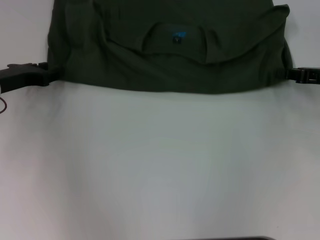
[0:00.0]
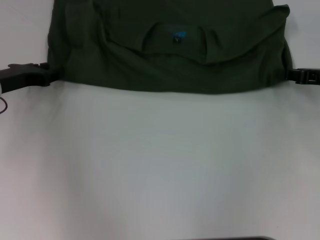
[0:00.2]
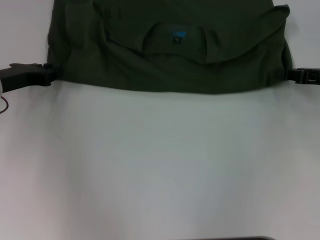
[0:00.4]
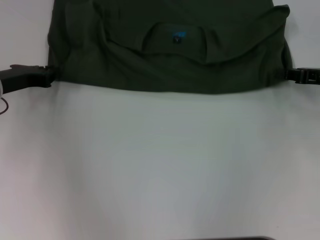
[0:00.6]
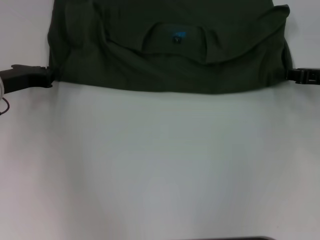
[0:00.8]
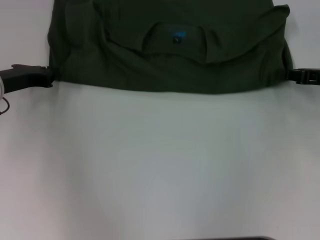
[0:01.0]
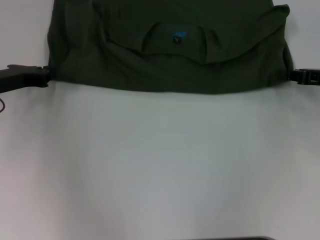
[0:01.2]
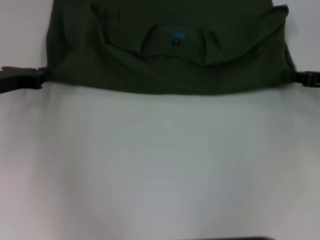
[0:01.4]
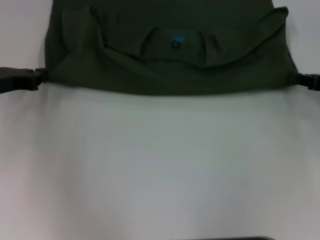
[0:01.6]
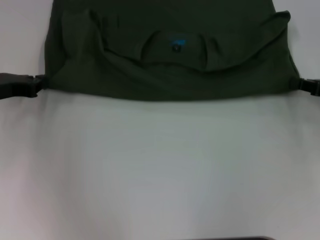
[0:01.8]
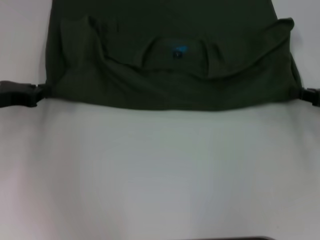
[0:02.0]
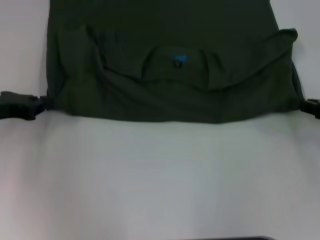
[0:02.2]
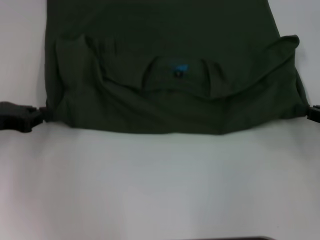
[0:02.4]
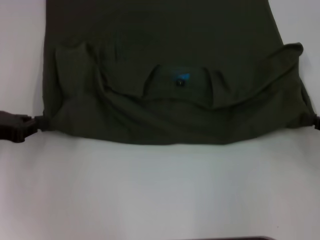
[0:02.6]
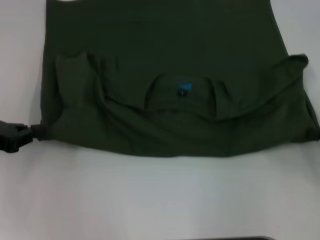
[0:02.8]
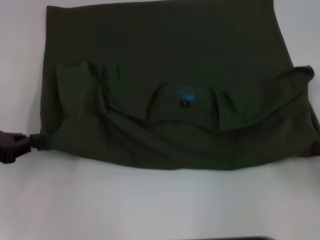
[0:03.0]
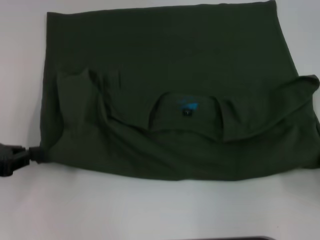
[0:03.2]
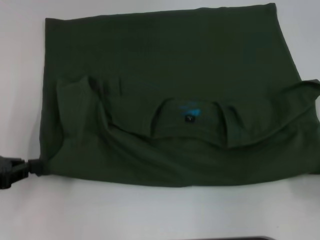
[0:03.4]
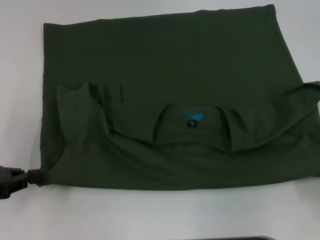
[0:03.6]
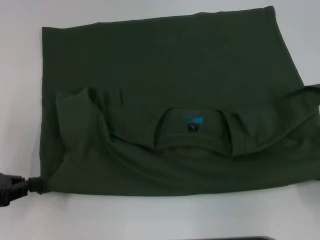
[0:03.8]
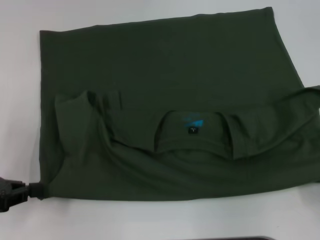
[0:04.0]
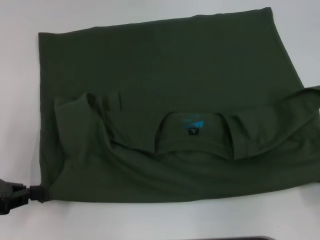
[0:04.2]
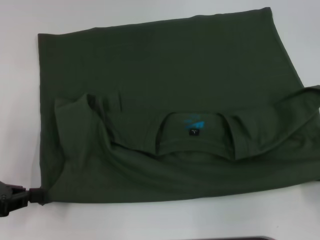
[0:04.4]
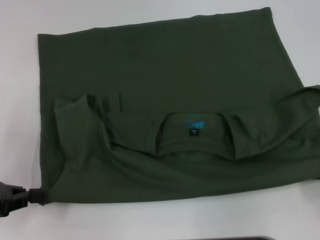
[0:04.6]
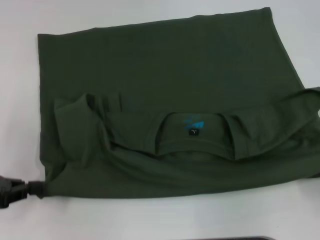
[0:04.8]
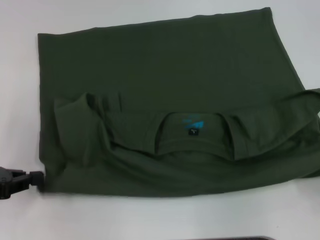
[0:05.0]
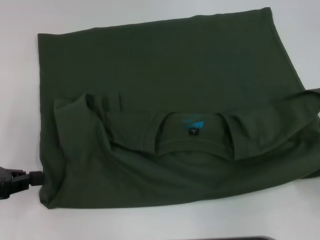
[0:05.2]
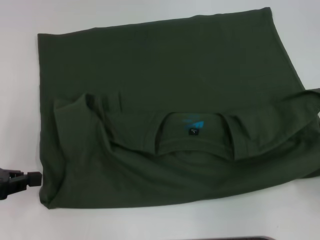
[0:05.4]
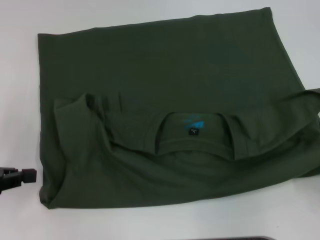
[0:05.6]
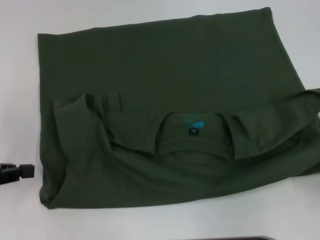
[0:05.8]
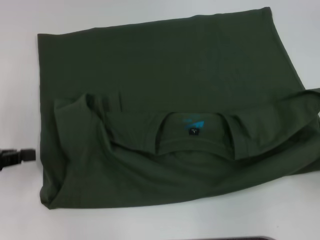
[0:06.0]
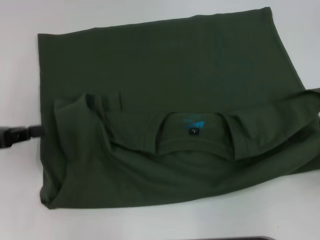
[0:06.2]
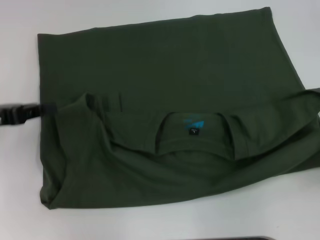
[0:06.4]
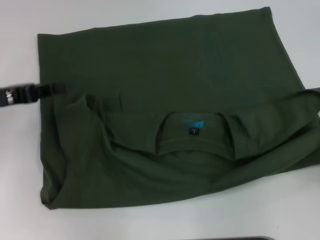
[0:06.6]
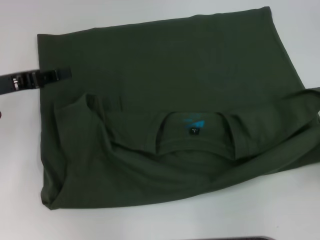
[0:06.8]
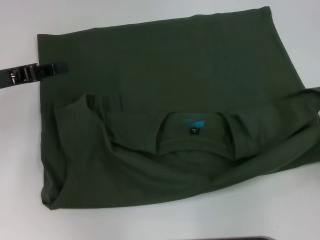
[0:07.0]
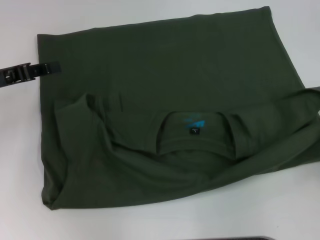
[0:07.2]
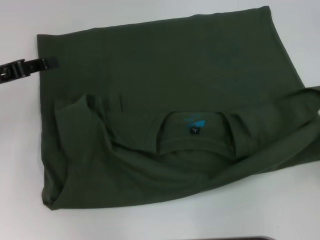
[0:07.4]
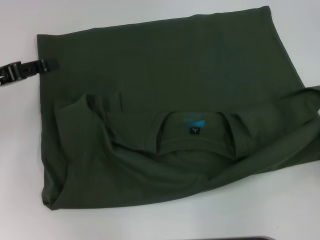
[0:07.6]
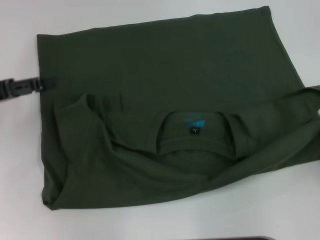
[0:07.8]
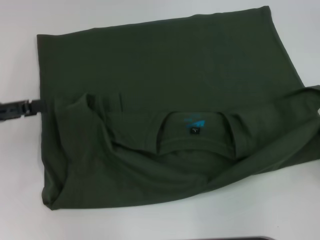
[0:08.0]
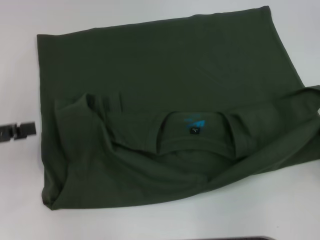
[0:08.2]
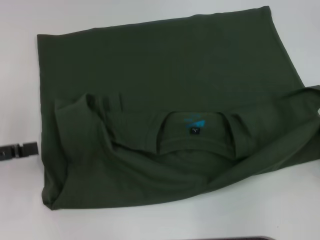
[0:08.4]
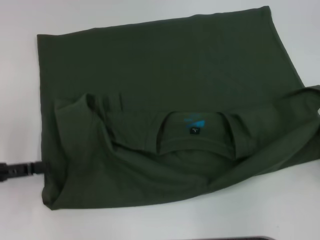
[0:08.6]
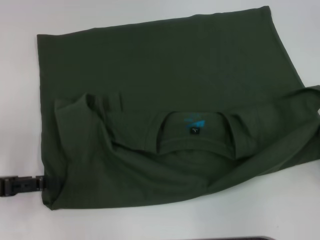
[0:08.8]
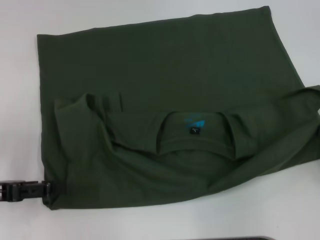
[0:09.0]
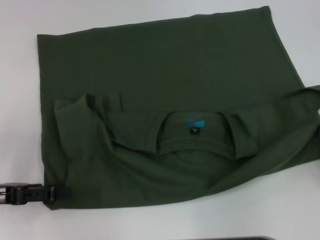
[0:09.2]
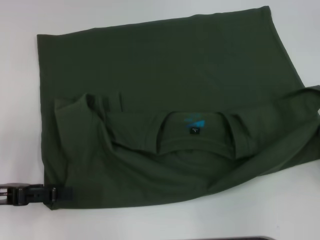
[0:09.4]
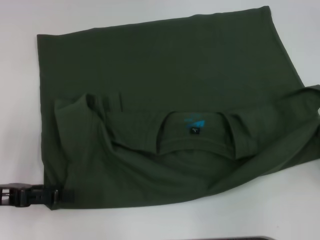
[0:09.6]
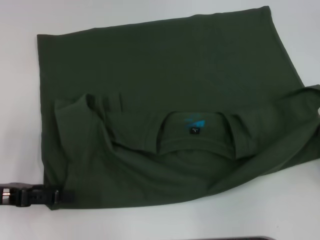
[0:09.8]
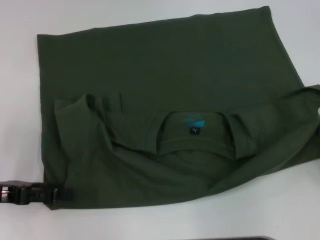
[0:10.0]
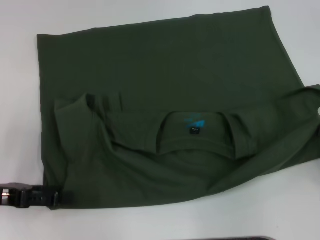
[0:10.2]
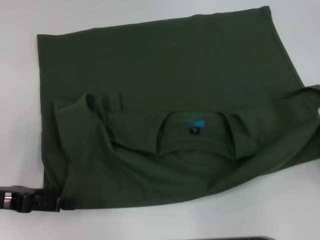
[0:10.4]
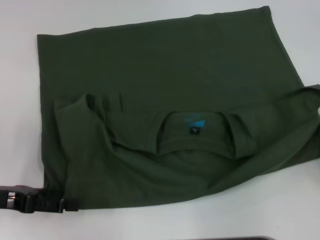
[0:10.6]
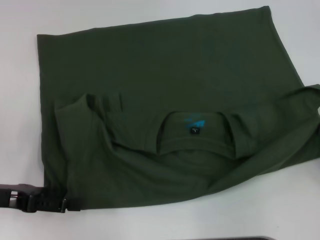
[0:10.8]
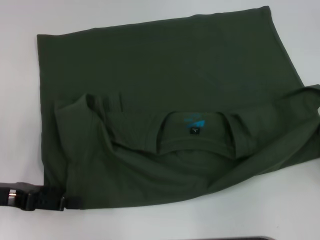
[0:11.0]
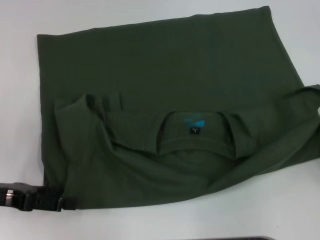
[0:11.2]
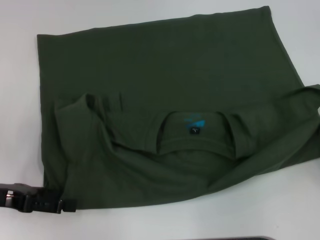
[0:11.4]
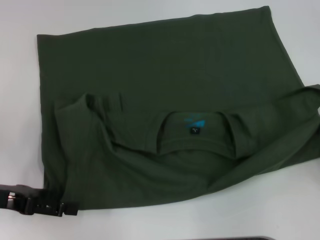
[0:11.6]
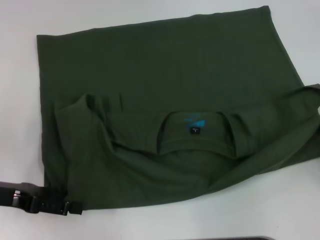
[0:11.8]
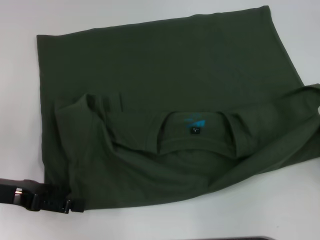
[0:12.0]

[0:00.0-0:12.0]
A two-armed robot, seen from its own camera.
Step, 0:00.0 to 0:04.2: Pull the clothes with your left hand.
Step, 0:00.0 to 0:04.2: Pull the clothes with your right hand.
0:00.0 to 0:01.6: The left gripper closes.
0:01.6 to 0:03.0: The two grippers go approximately 10 cm backward.
0:03.0 to 0:04.4: The right gripper travels backward by approximately 5 cm.
0:04.4 to 0:06.0: The grippers stay close to where they were, moving slightly.
0:06.0 to 0:07.6: The left gripper is displaced forward by roughly 10 cm.
0:07.6 to 0:09.0: The left gripper is displaced backward by approximately 10 cm, and opens up.
0:09.0 to 0:12.0: The grippers stay close to where they were, moving slightly.

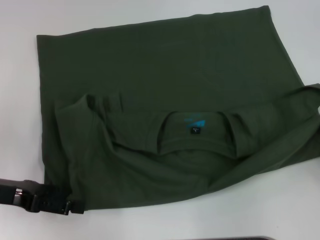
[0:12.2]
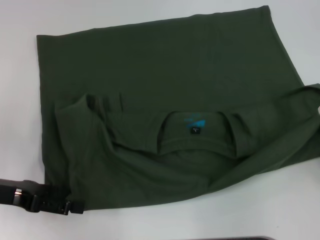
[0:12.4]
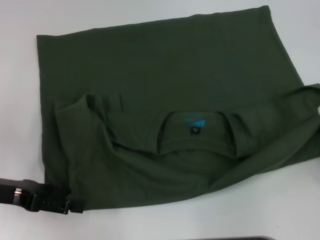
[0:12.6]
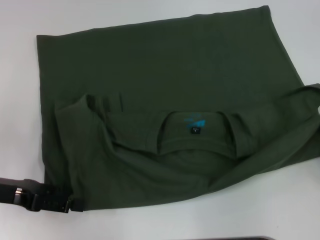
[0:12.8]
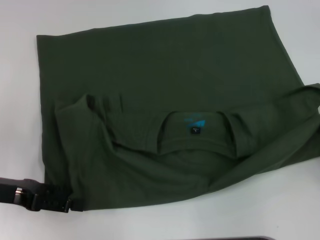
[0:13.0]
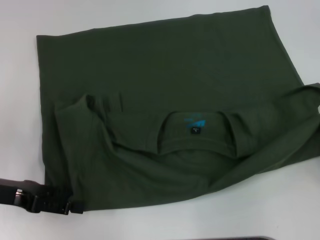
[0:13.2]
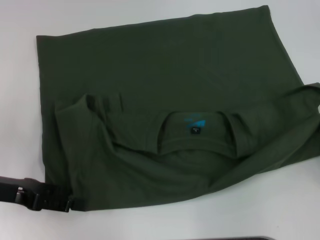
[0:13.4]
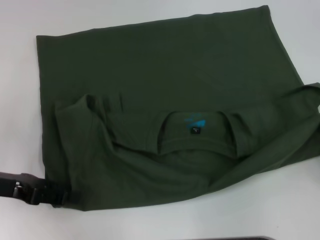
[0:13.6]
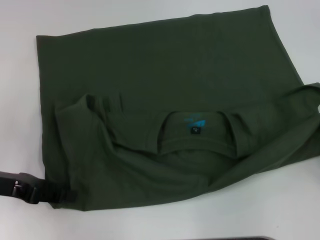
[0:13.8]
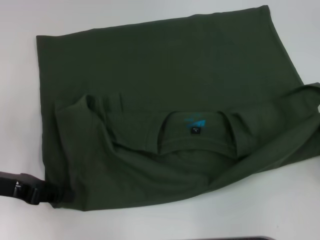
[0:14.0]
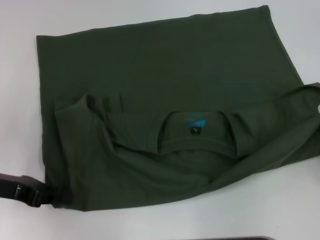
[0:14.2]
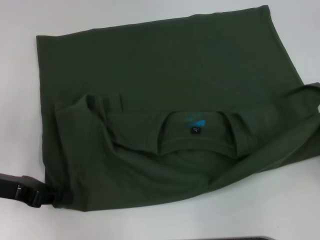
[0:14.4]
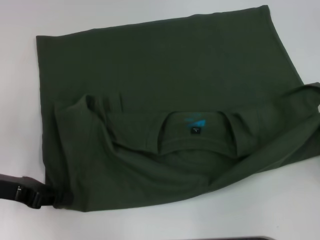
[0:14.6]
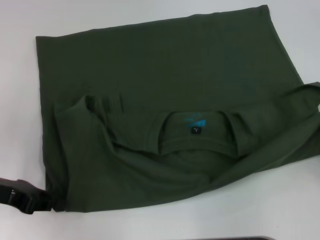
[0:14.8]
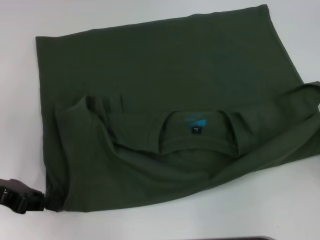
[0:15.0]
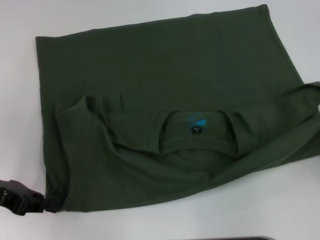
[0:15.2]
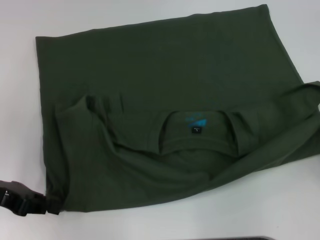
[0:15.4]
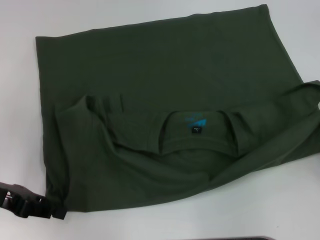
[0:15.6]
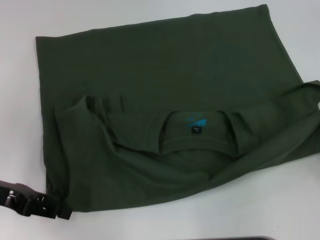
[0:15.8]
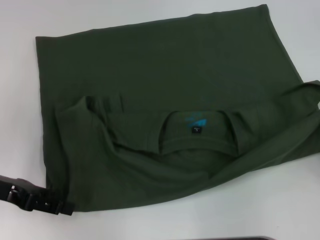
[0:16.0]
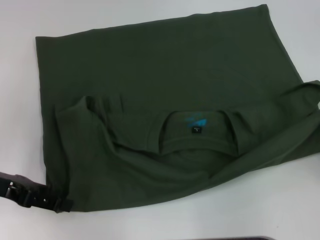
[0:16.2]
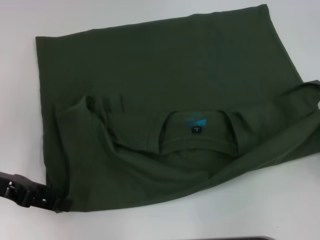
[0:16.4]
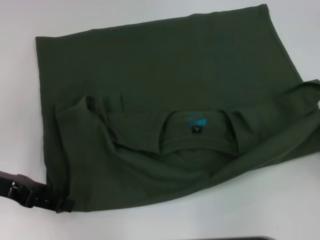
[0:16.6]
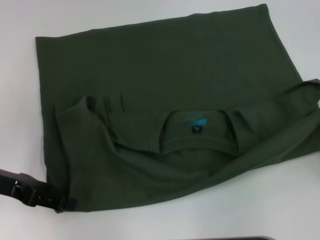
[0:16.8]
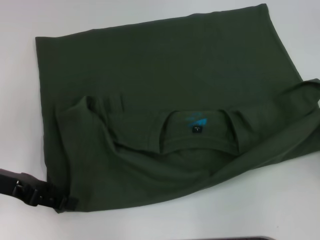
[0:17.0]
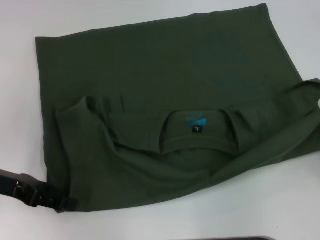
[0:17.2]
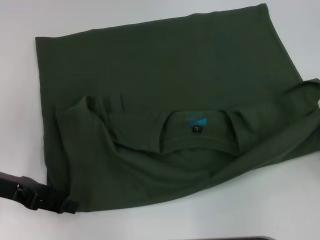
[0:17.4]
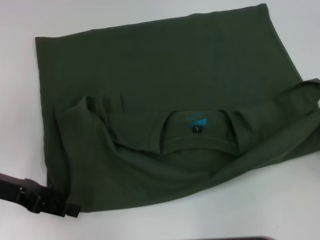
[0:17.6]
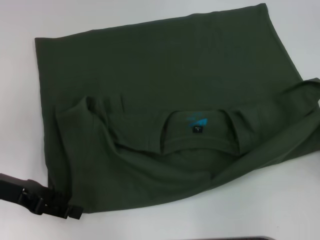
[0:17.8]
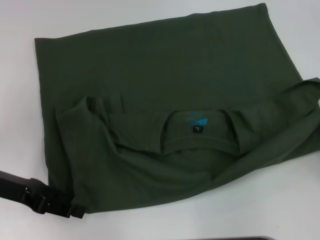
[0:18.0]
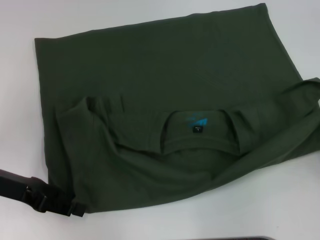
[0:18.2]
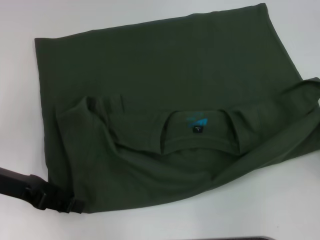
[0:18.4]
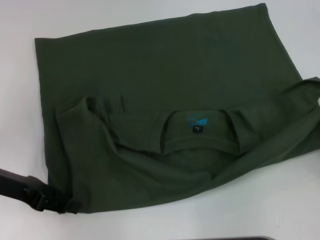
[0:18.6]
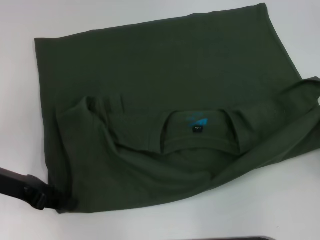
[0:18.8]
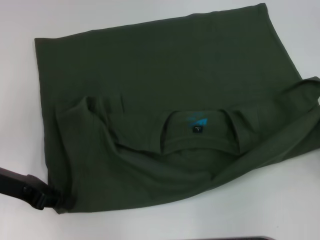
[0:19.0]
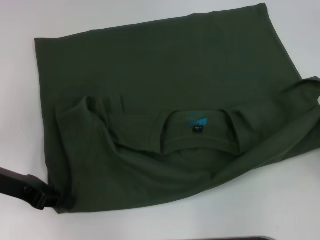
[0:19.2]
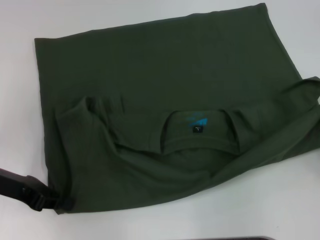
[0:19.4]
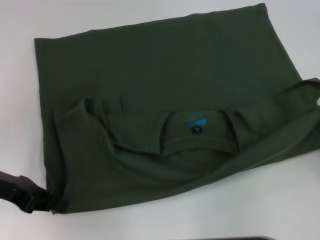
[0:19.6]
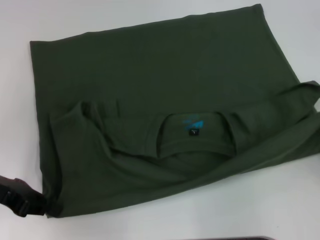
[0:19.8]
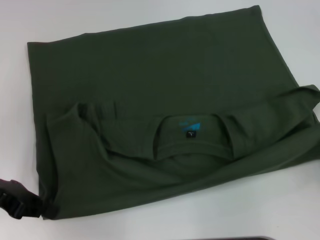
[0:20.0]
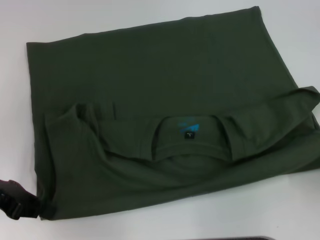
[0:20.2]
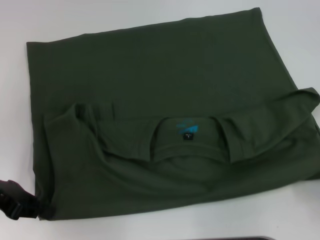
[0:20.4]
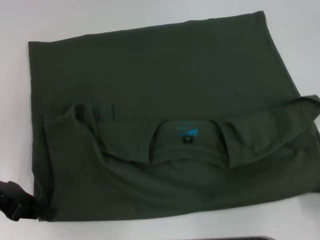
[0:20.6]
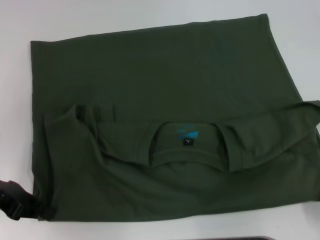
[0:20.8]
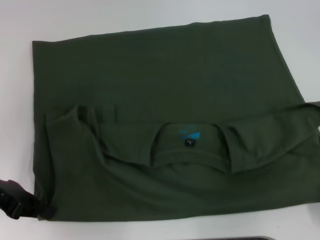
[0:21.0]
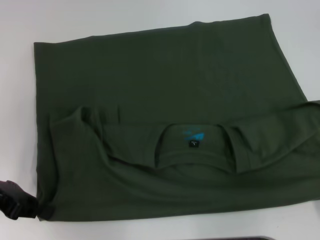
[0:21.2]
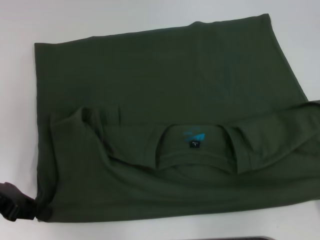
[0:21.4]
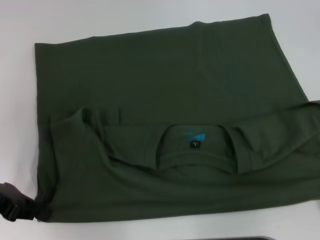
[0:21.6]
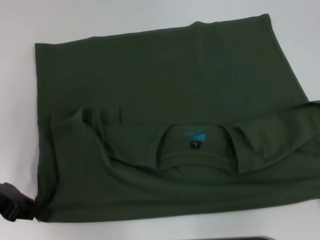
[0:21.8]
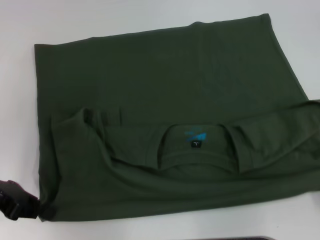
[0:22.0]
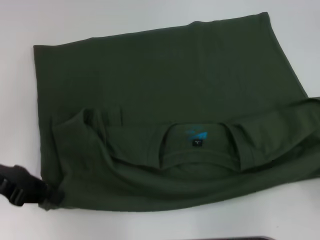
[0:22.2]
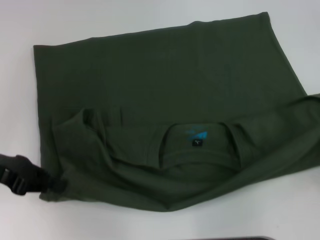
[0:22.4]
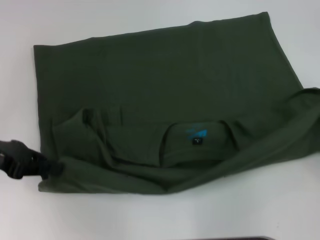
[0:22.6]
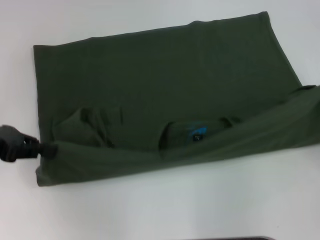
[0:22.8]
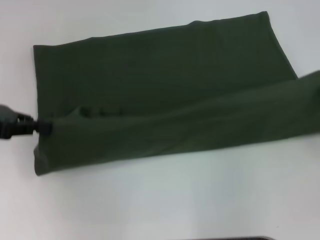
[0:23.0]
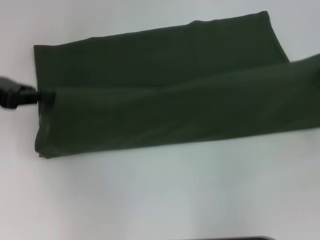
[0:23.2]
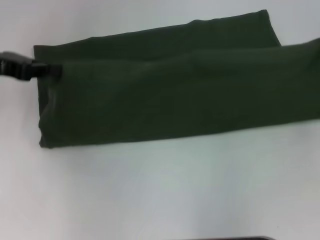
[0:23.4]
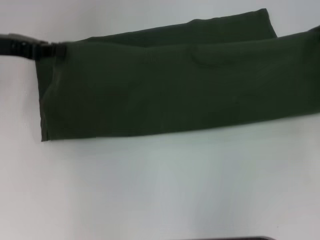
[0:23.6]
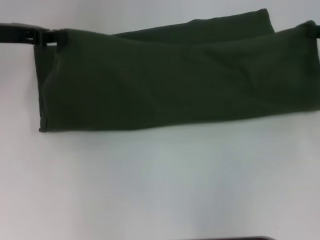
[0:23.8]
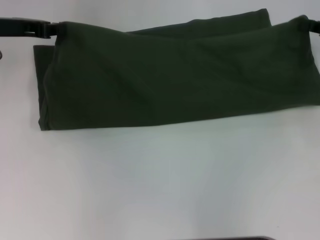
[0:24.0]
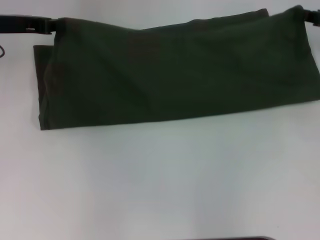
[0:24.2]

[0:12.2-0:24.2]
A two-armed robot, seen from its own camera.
0:12.2 to 0:13.8: The left gripper closes.
0:13.8 to 0:15.2: The left gripper closes its fingers.
0:15.2 to 0:16.6: The left gripper opens its fingers.
0:16.6 to 0:18.2: The grippers stay close to where they were, moving slightly.
0:18.2 to 0:19.8: The left gripper closes up.
0:19.8 to 0:21.2: The right gripper heads backward, covering roughly 10 cm.
0:21.2 to 0:22.6: The right gripper shifts some 10 cm forward.
0:22.6 to 0:24.2: Both grippers travel together forward, approximately 15 cm.
